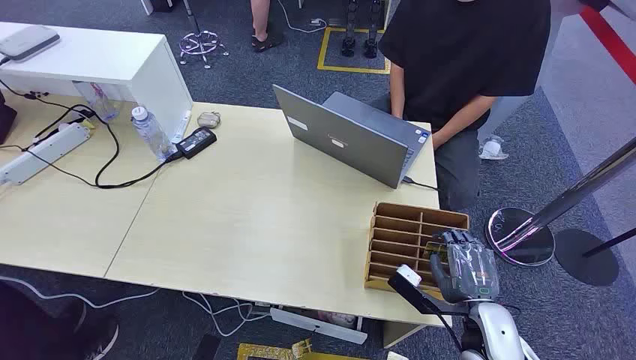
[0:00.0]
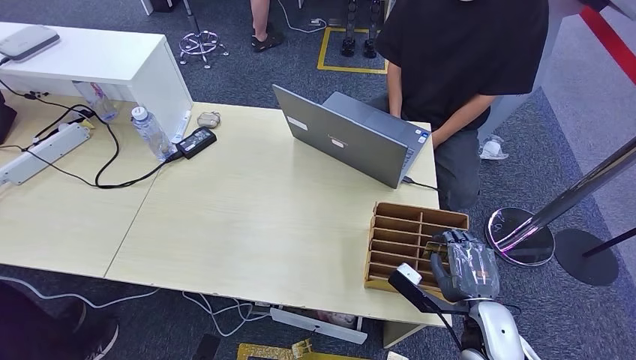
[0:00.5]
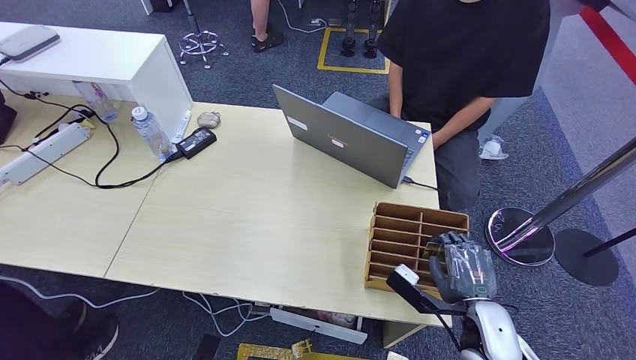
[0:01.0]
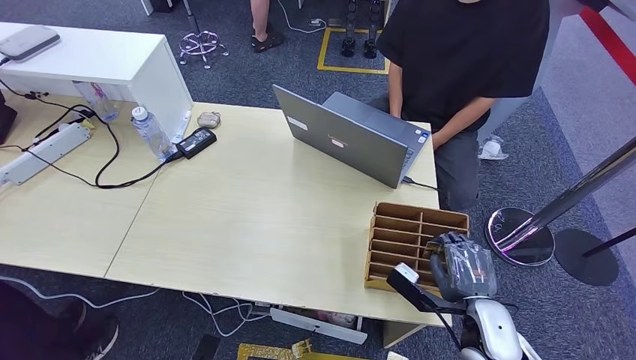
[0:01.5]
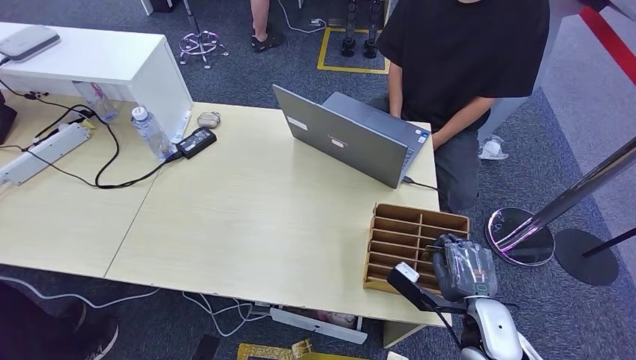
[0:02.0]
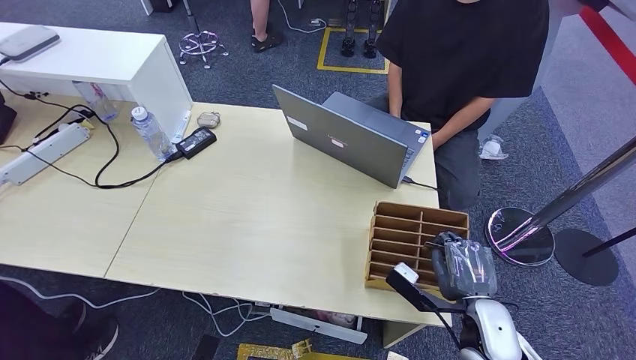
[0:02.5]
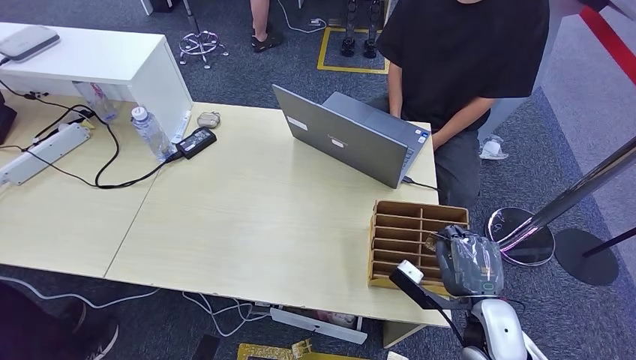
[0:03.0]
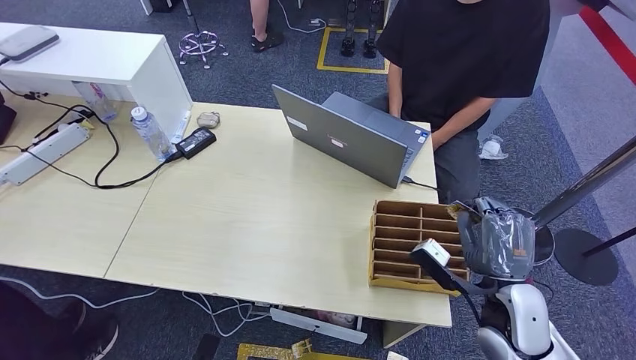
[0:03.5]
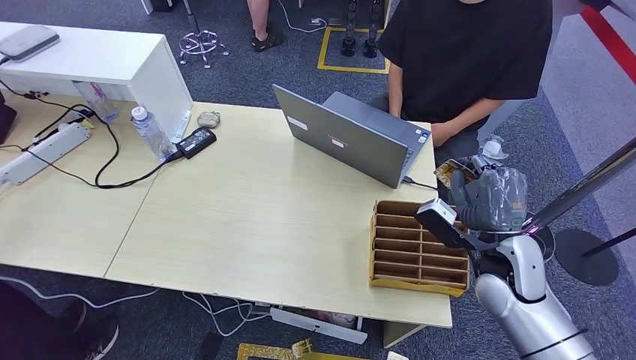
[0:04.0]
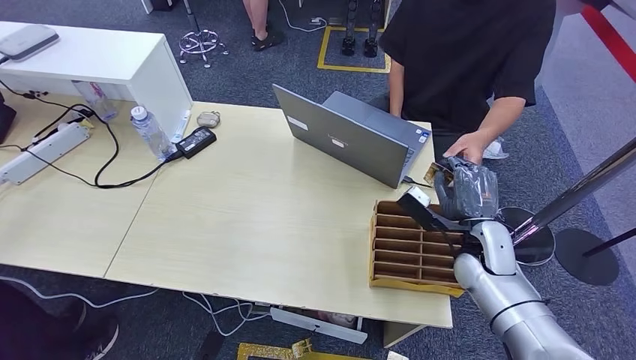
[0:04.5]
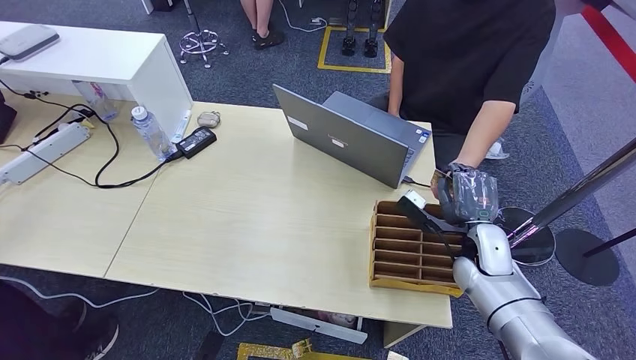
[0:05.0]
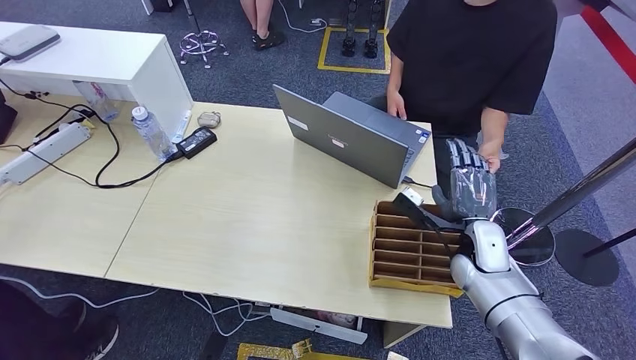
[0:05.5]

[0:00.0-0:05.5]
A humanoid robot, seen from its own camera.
Step, 0:00.0 to 0:03.5: Pick up the room card from the card holder.
Step, 0:04.0 to 0:05.5: Hand the room card to the target.
0:02.0 to 0:03.5: The right hand shifts roughly 5 cm upward.
0:03.5 to 0:05.5: The right hand is displaced forward by roughly 10 cm.

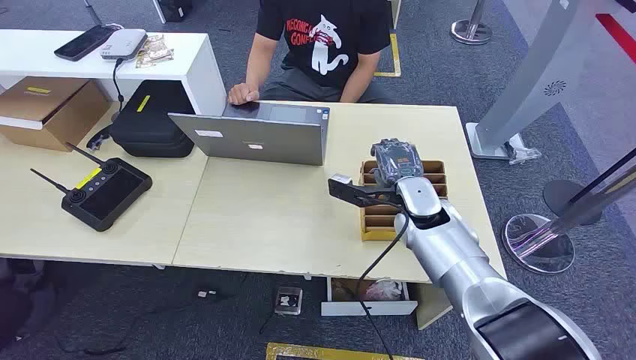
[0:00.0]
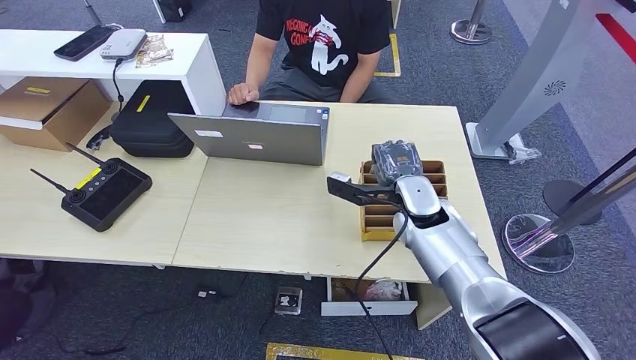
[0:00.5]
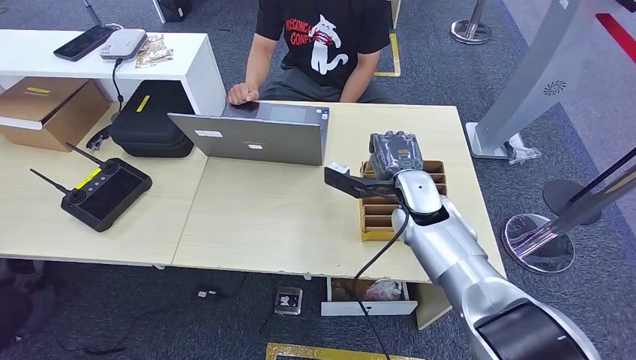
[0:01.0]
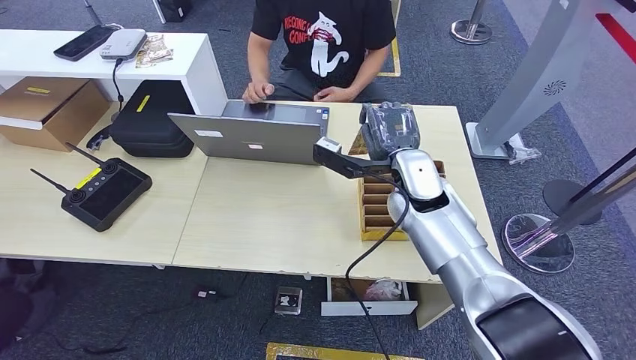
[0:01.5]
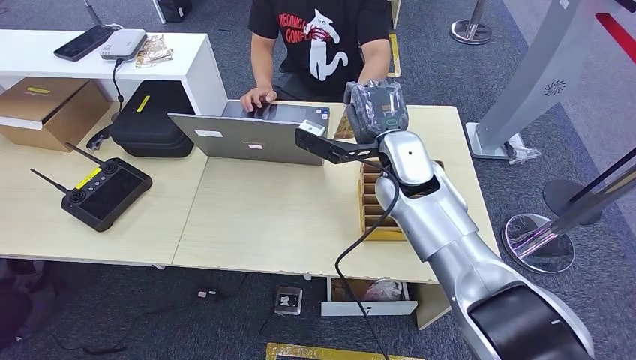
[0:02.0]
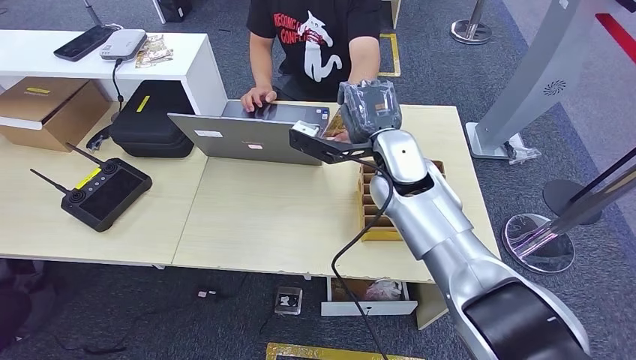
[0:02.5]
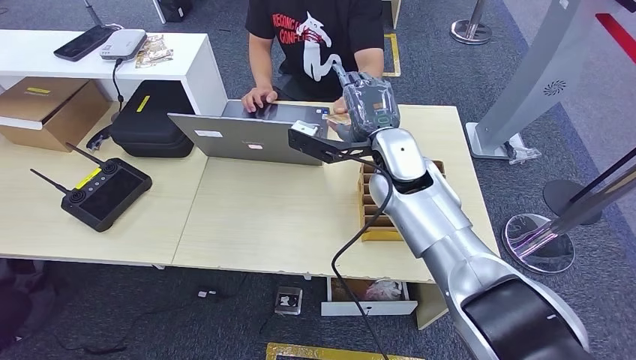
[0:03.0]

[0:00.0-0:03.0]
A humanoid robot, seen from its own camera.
Step, 0:00.0 to 0:01.5: Pick up the room card from the card holder.
Step, 0:02.0 to 0:03.0: Hand the room card to the target.
0:01.5 to 0:03.0: The right hand ends up roughly 5 cm from where it was.
